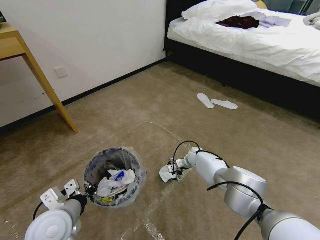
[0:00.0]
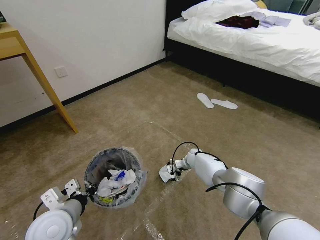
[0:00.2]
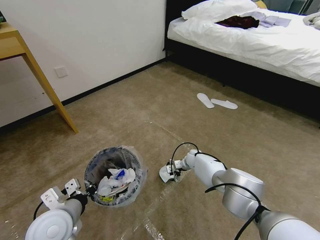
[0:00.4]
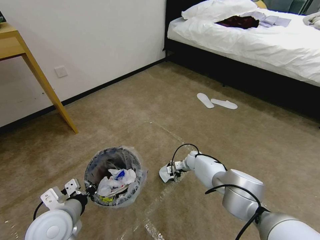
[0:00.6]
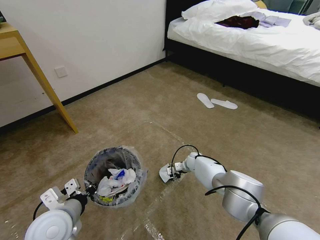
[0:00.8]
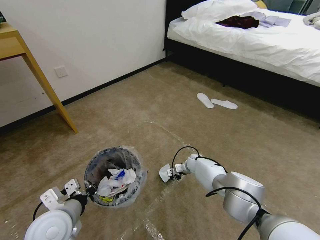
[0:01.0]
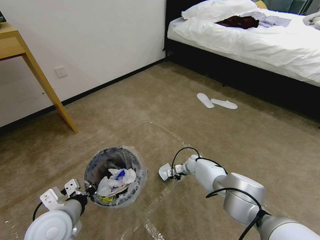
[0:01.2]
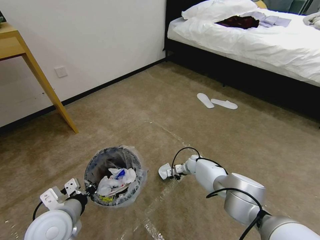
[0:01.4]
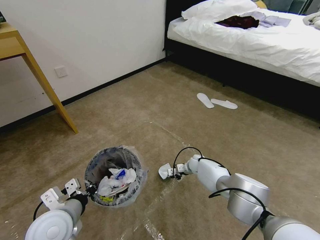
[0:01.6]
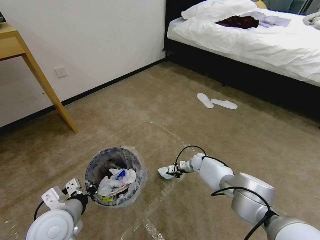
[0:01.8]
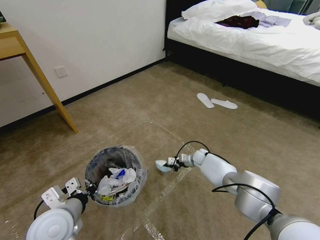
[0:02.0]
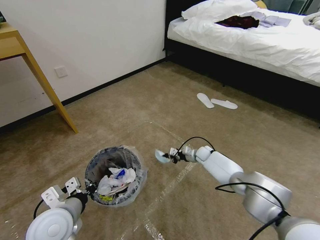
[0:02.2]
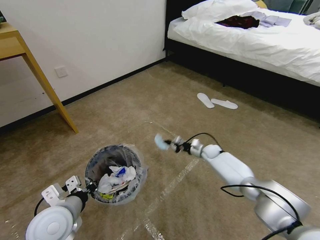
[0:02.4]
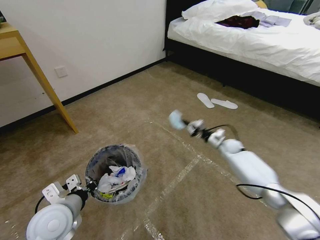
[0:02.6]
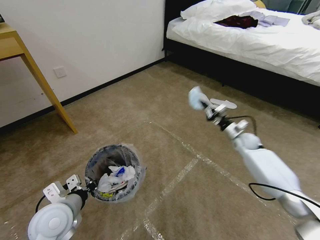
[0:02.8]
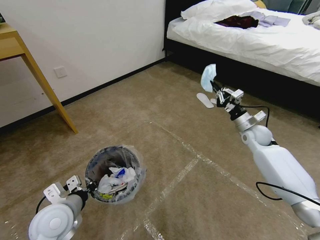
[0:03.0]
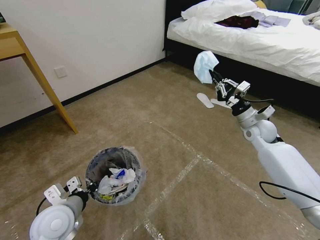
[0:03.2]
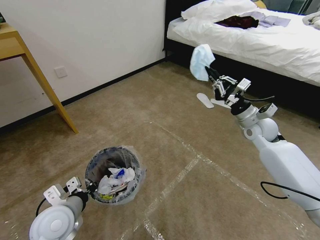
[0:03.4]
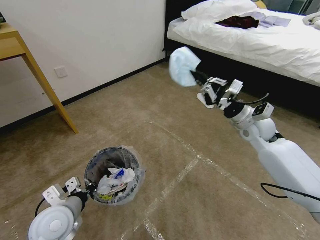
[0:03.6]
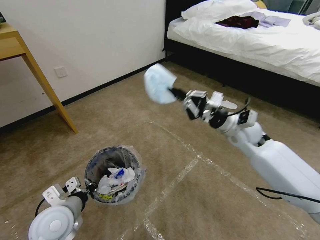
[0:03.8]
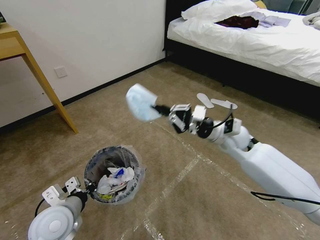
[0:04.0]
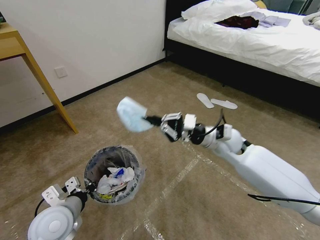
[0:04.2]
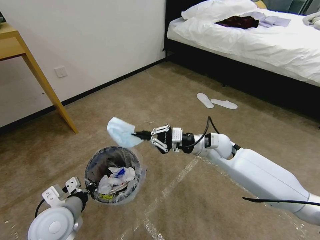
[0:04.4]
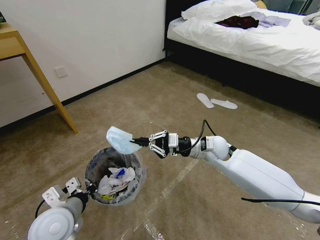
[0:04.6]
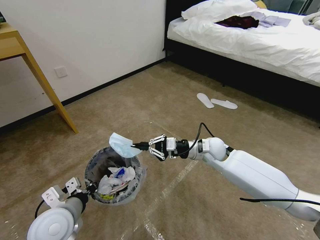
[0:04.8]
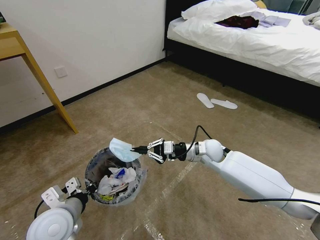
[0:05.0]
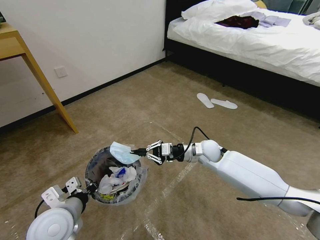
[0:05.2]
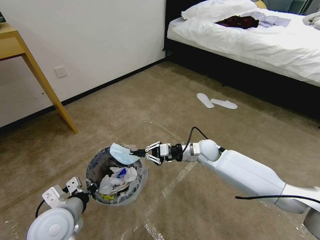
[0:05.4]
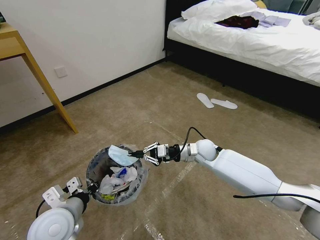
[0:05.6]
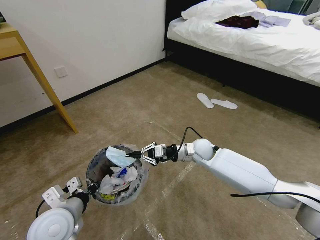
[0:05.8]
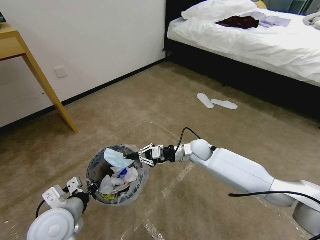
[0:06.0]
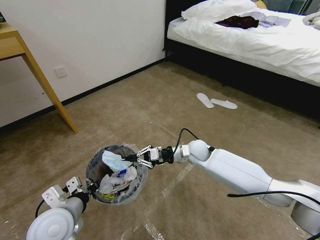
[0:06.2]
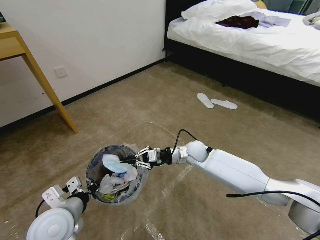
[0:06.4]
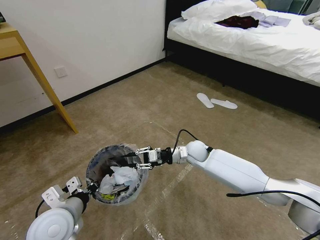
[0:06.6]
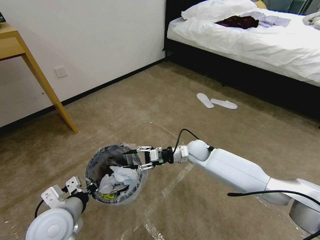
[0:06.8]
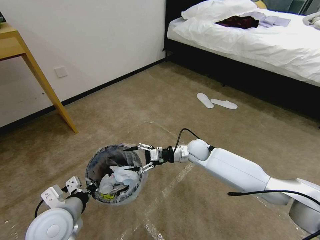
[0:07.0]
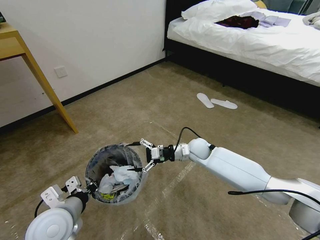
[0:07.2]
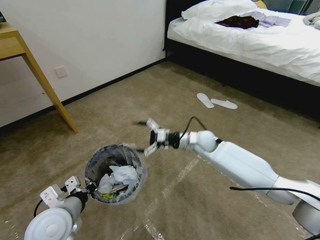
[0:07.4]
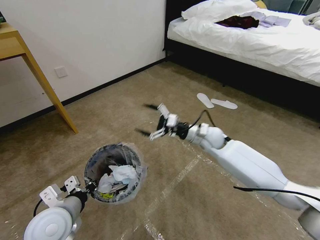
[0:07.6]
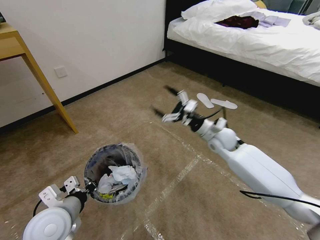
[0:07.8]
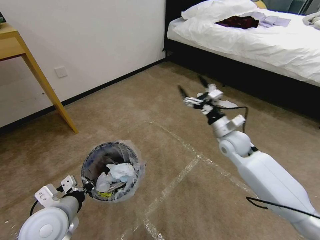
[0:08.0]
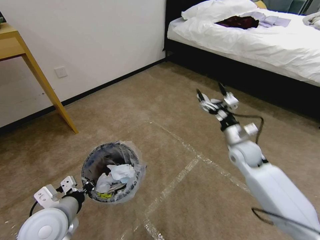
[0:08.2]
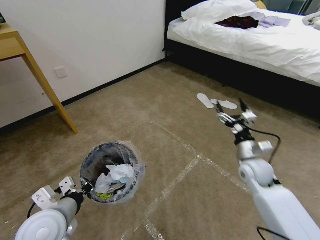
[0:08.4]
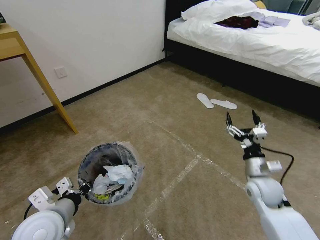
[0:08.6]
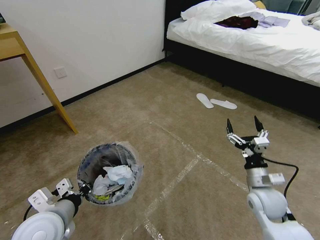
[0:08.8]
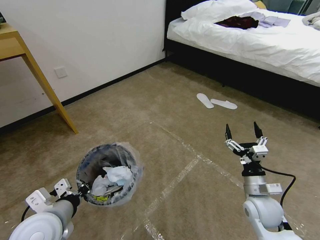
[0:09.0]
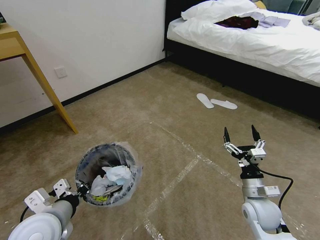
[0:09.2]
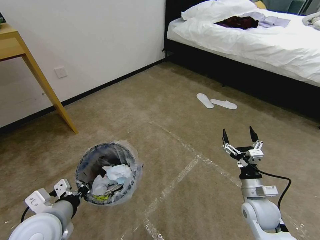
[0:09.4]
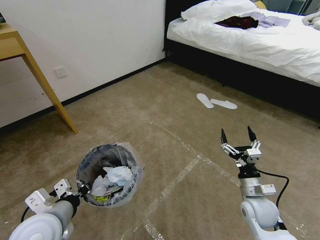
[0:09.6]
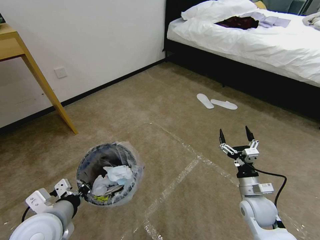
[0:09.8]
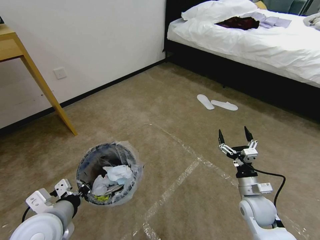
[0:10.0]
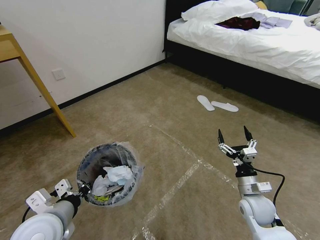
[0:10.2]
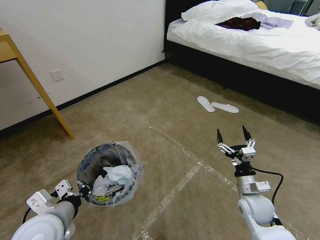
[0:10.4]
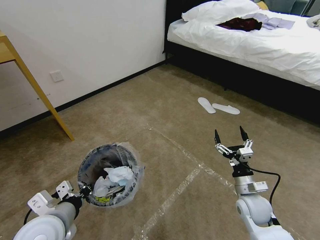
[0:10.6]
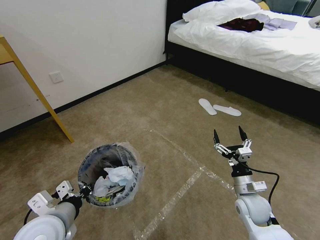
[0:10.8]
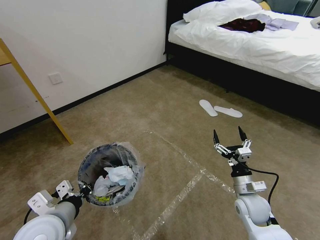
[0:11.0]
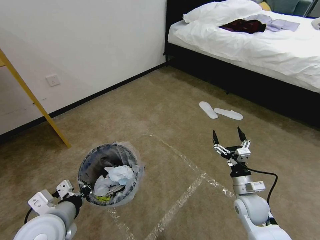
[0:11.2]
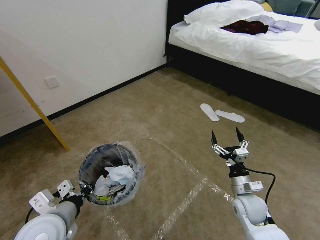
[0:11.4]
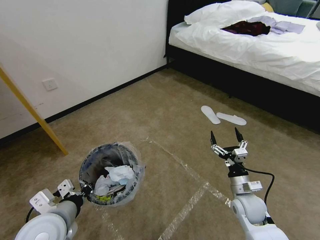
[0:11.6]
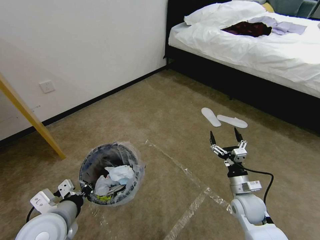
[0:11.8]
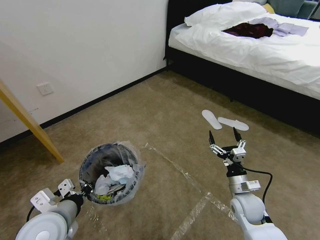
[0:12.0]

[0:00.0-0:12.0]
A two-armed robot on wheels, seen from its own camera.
Task of the whole recording: Pick up the trash bin and place the garbage on the floor into it.
0:00.0 to 0:01.6: The right gripper closes up.
0:01.6 to 0:03.0: The right gripper is displaced upward and to the right by roughly 30 cm.
0:03.0 to 0:04.4: The right gripper heads to the left and backward, covering roughly 20 cm.
0:04.4 to 0:06.0: The right gripper is displaced downward by approximately 10 cm.
0:06.0 to 0:07.6: The right gripper moves upward, about 5 cm, and opens its fingers.
0:07.6 to 0:09.0: The right gripper is displaced backward and to the right by roughly 25 cm.
0:09.0 to 0:10.4: The grippers make only small movements.

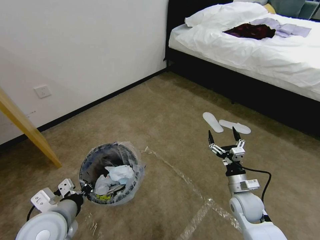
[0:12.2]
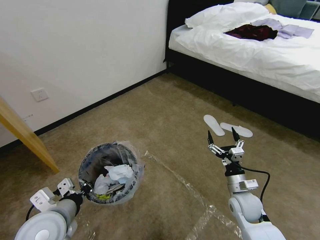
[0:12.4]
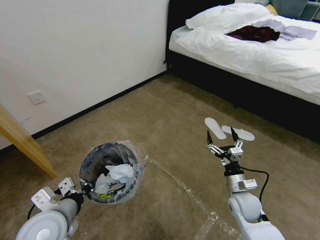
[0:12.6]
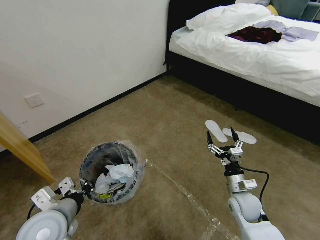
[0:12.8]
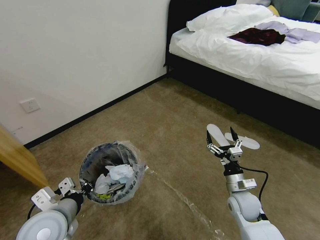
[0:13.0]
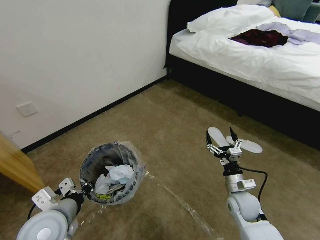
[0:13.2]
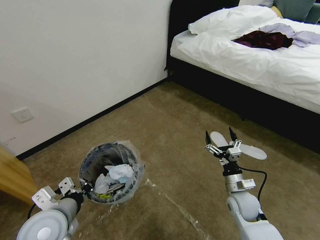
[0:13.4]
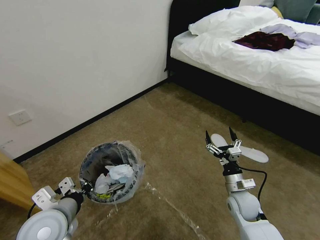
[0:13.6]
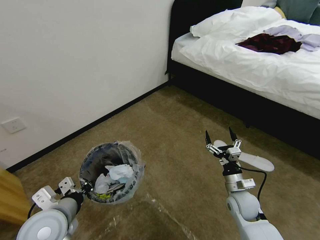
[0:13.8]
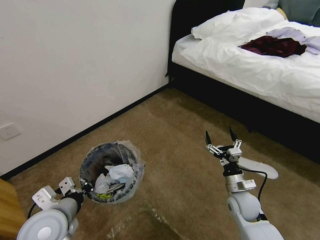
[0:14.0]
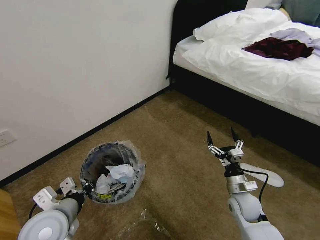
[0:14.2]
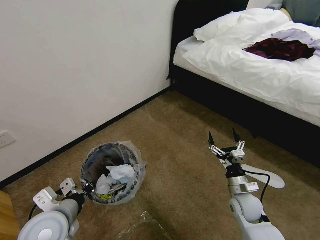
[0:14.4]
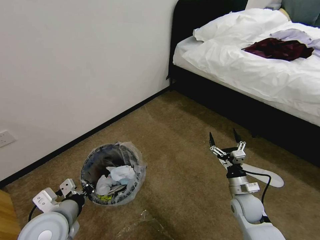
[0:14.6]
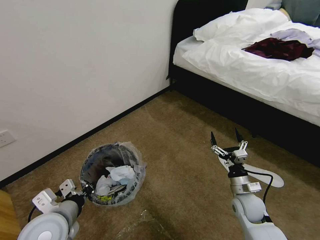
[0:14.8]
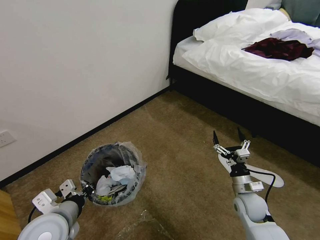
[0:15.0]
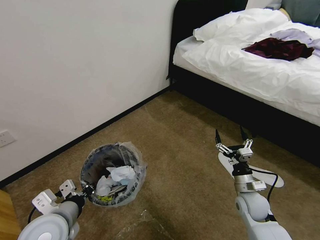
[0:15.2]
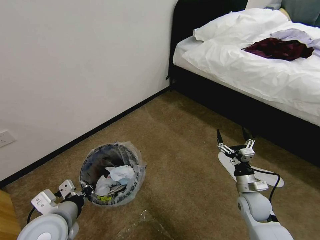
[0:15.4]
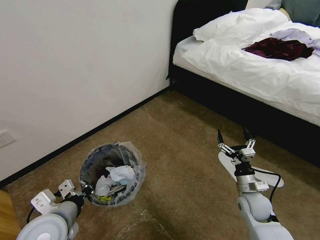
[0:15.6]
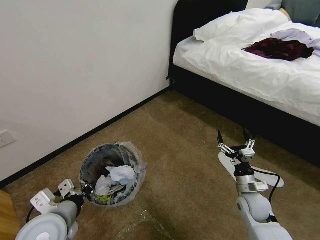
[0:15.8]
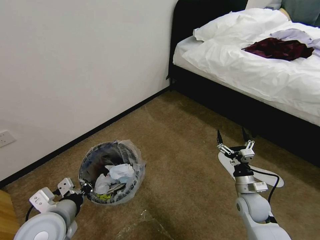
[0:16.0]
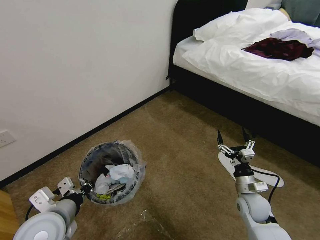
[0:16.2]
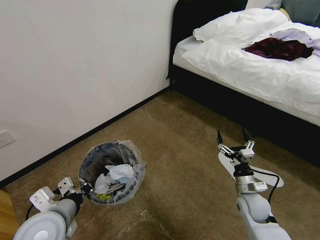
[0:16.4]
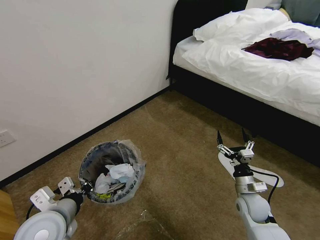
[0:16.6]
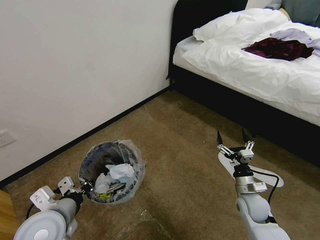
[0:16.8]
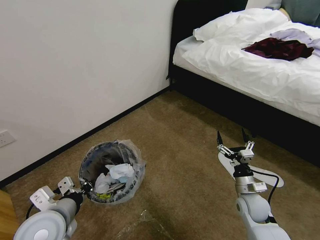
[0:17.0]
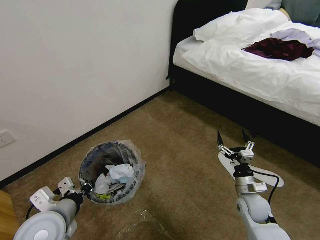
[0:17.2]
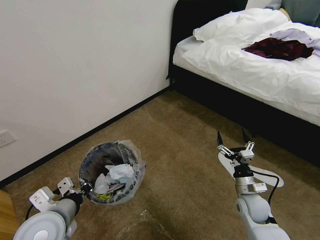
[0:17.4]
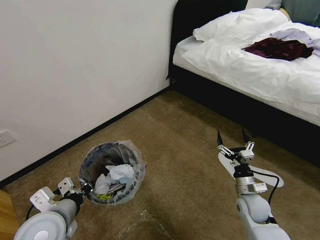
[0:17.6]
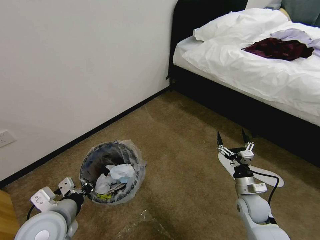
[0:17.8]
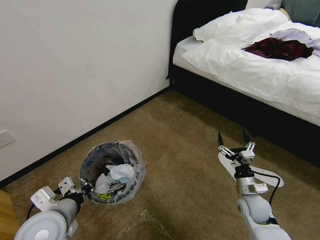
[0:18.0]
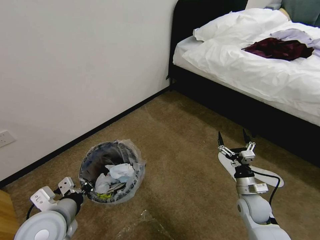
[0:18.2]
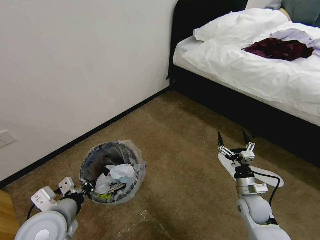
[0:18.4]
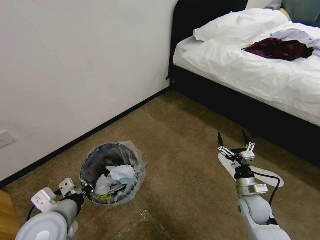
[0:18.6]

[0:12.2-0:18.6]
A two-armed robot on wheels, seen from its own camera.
Task of the whole recording: Pick up the trash bin and place the garbage on the floor into it.
0:15.4 to 0:18.6: The two grippers keep their place.
